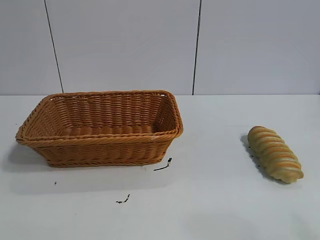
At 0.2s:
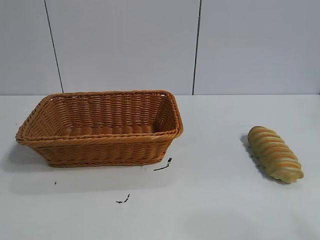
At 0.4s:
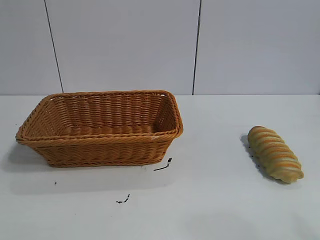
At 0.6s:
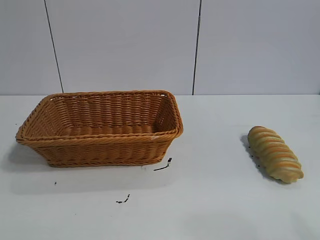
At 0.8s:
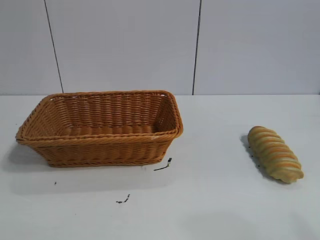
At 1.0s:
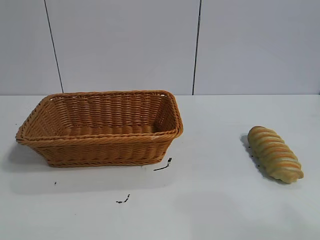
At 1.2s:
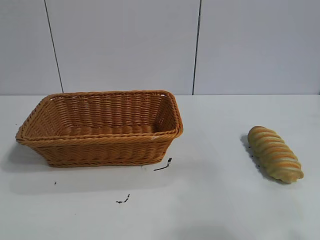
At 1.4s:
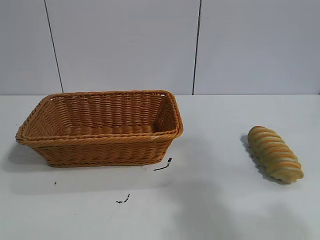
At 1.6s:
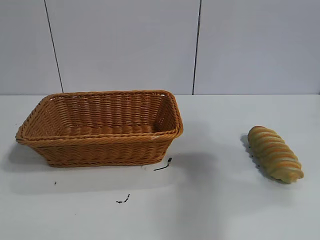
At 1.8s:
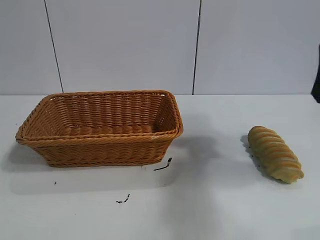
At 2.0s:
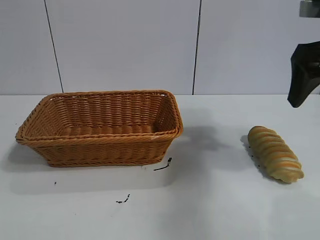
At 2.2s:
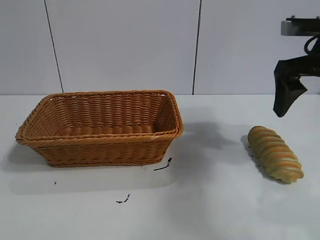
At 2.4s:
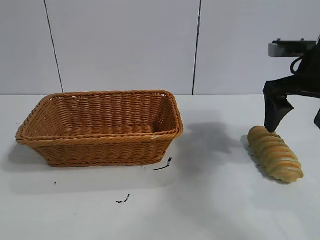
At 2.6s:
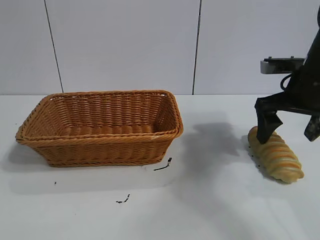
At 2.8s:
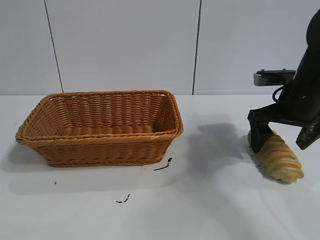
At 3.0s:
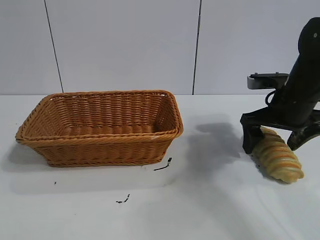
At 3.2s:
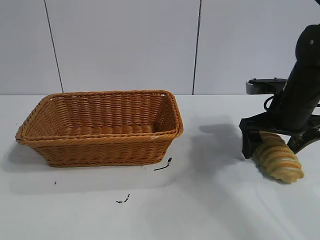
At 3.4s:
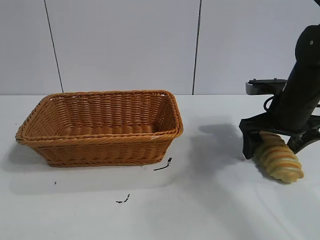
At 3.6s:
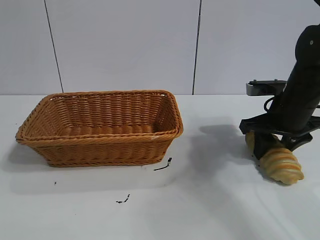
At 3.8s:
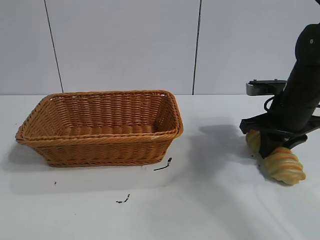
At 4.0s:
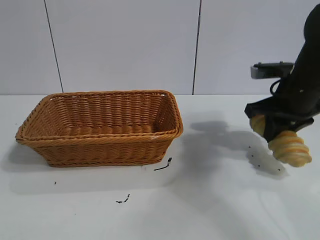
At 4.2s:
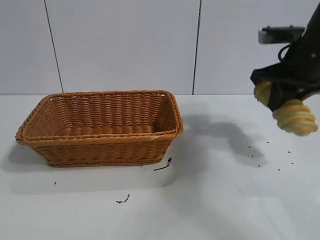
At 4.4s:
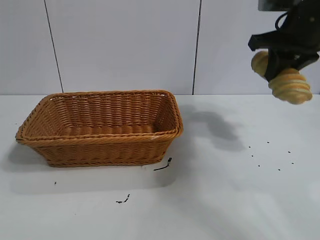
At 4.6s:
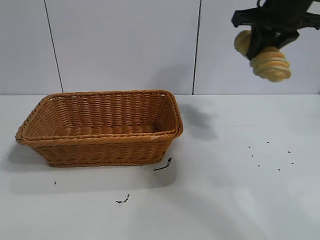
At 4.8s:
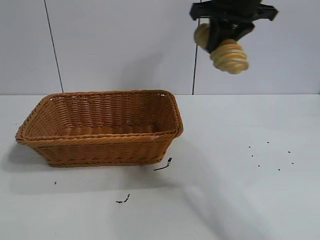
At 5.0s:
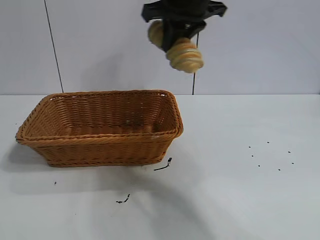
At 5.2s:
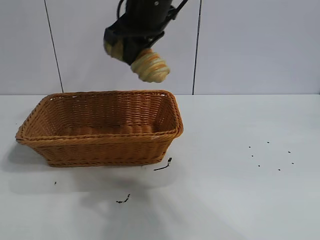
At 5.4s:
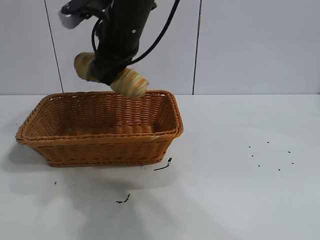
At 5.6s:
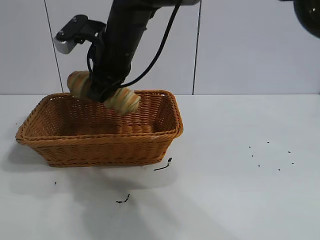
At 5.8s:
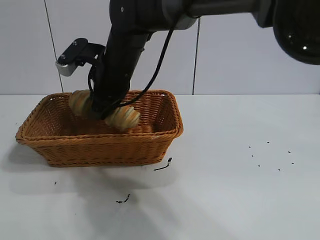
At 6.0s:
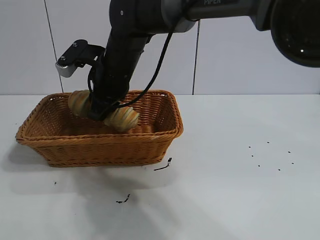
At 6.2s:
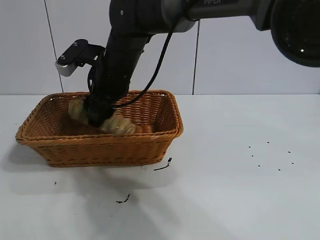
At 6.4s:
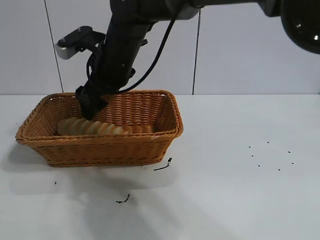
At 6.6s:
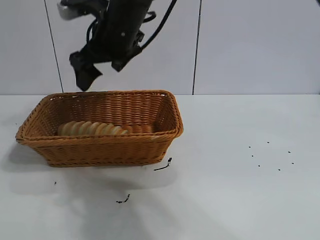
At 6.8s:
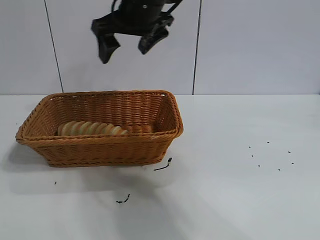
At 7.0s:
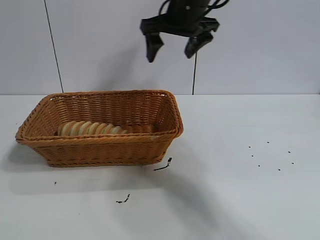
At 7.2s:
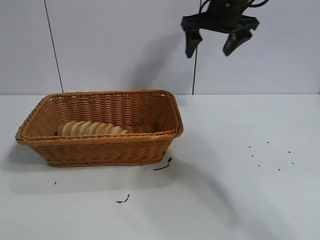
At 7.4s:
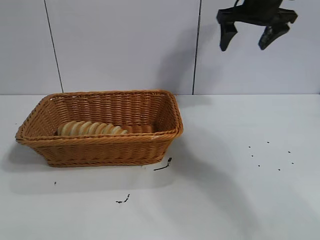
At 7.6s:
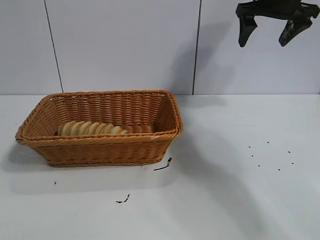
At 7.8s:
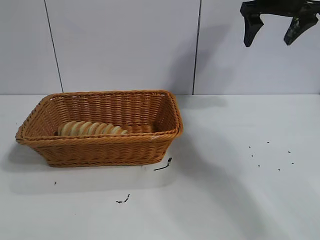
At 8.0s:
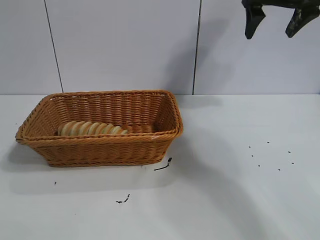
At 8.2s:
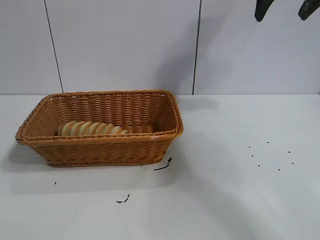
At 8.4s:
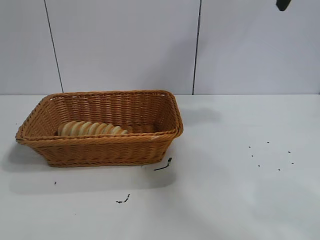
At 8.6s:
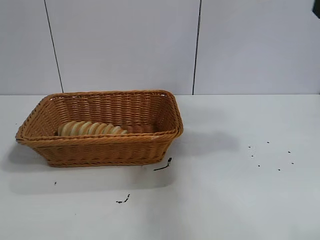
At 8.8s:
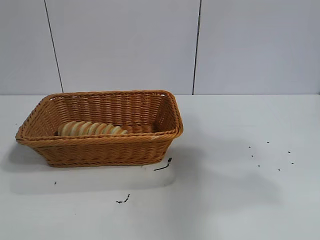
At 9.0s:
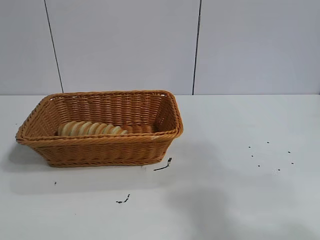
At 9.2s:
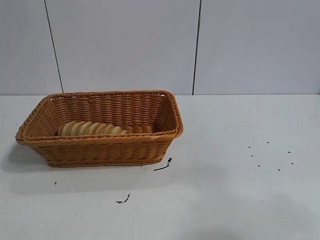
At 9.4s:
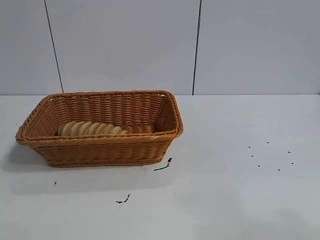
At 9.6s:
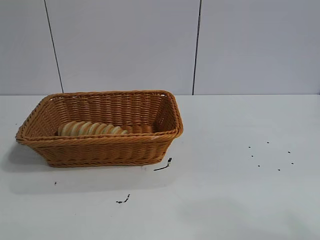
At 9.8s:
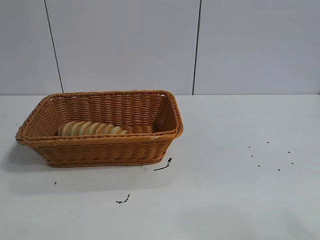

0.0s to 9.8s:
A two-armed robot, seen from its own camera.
Task of the whole recording: pick up the long bread and put it into the basket.
Step, 1.8s to 4.0s: Grasp the long bread with right gripper.
Step, 4.4s to 6.4s: Place the long bread in the basket with right gripper.
